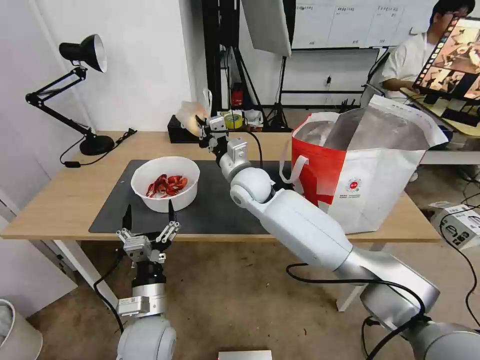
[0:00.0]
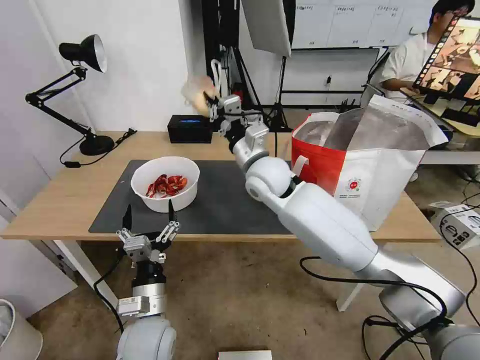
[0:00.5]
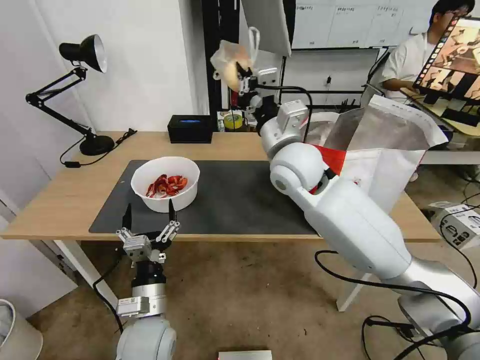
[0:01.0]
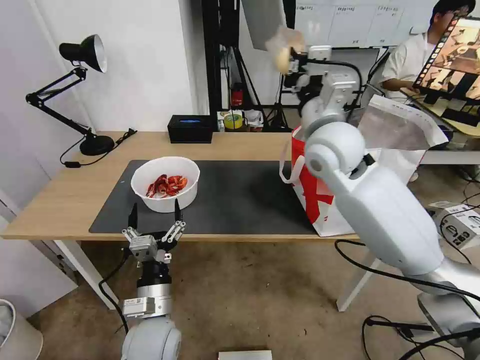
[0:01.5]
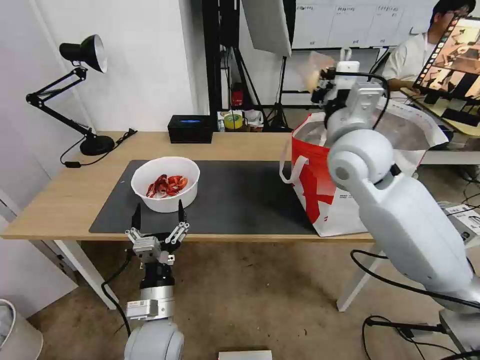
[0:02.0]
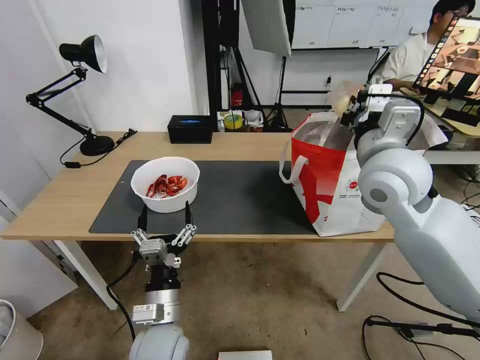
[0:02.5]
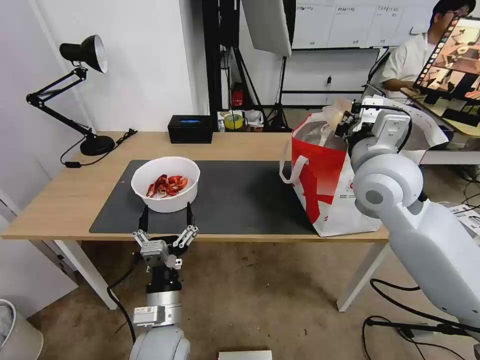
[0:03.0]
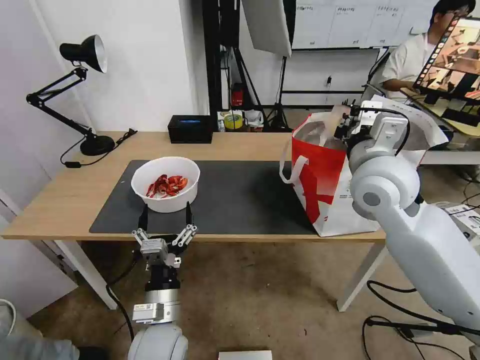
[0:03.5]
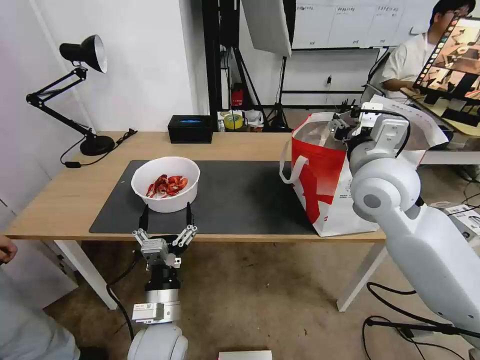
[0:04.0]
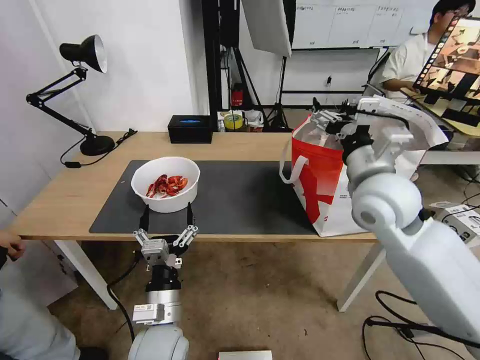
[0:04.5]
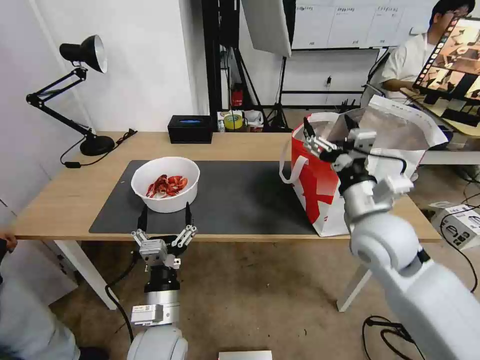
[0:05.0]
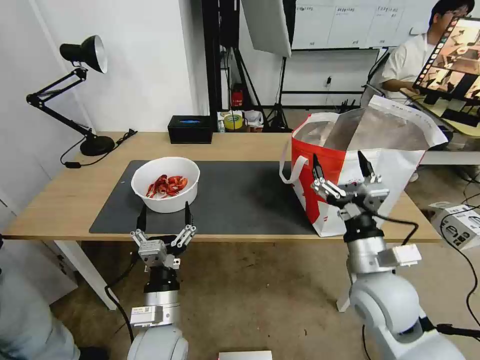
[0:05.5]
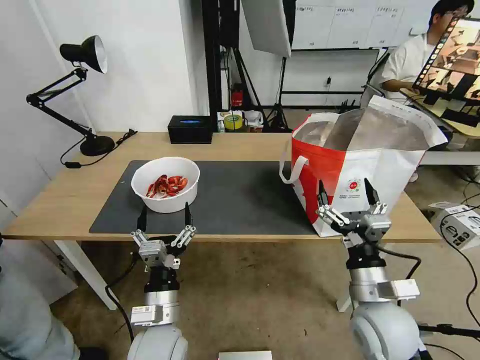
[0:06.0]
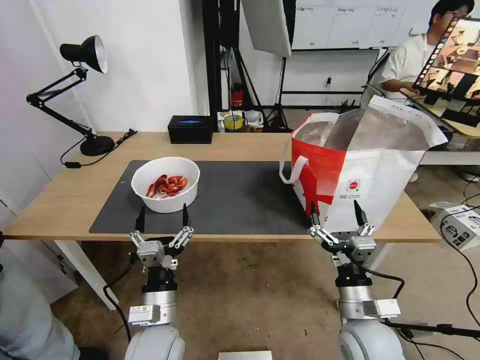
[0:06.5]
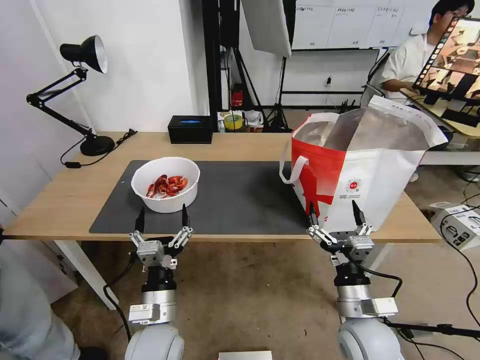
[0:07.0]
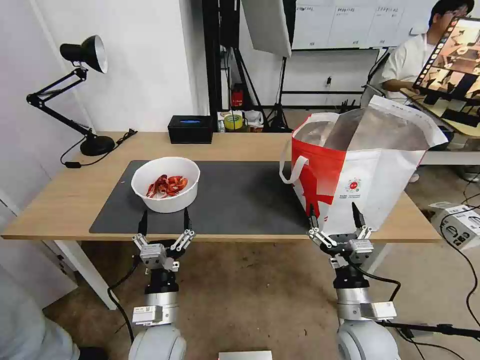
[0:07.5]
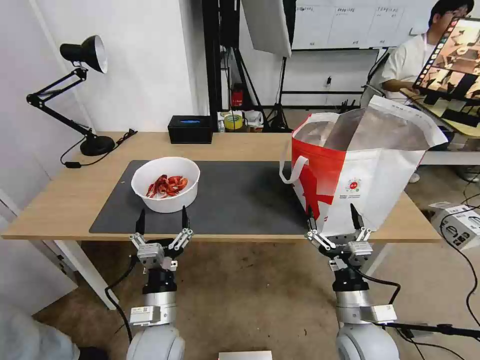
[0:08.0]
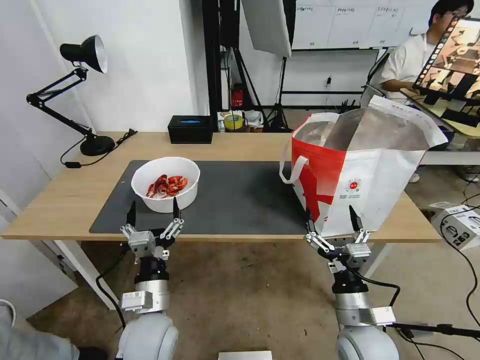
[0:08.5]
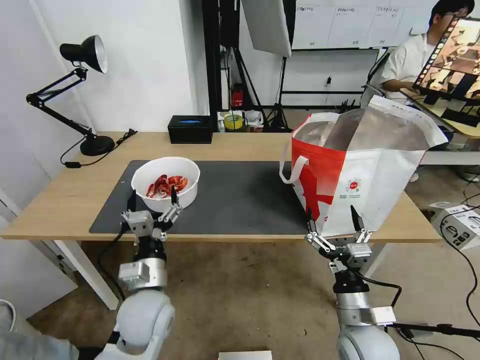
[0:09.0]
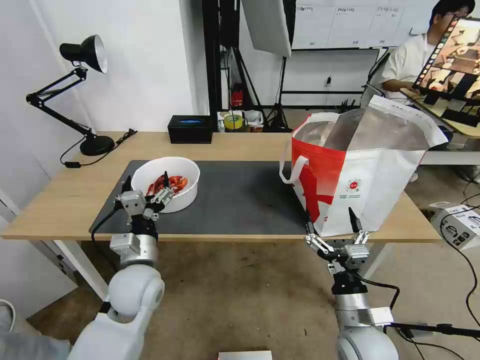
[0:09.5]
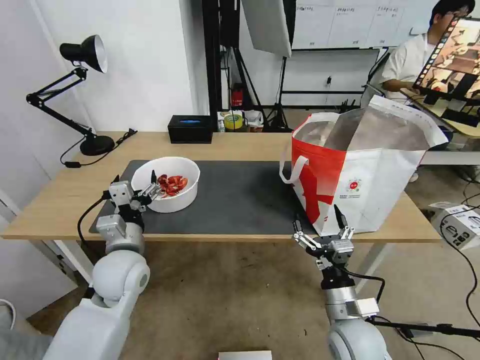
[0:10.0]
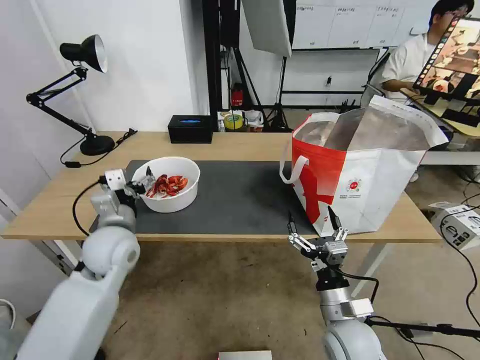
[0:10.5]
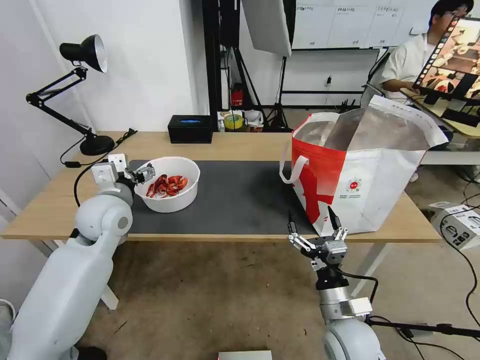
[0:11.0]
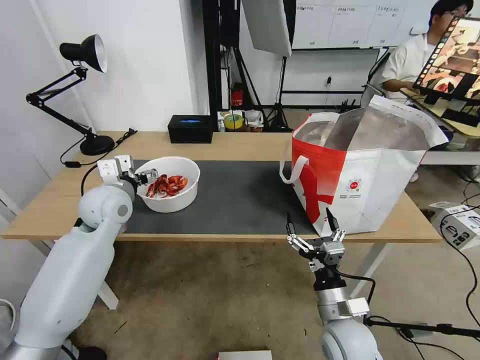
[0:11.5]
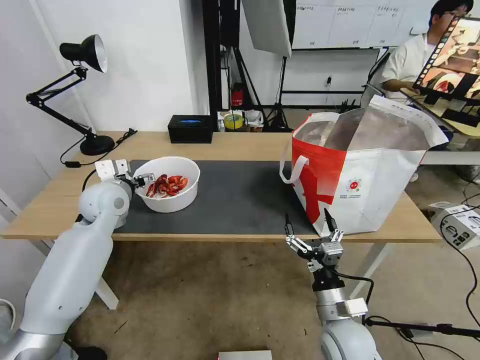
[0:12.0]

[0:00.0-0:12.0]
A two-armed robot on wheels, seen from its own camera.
Task of the whole recording: Pick up the trash from the table and place it into the takeout bag.
0:00.0 to 0:02.0: The right gripper moves to the right, upward and backward, about 25 cm.
0:02.0 to 0:04.0: The right gripper ends up about 5 cm from where it was, and opens.
0:04.0 to 0:06.0: The right gripper travels downward and backward by some 25 cm.
0:06.0 to 0:08.0: The right gripper moves downward, approximately 5 cm.
0:08.0 to 0:10.0: The left gripper shifts some 15 cm forward, upward and to the left.
0:10.0 to 0:12.0: The left gripper moves forward, to the left and upward, approximately 15 cm.

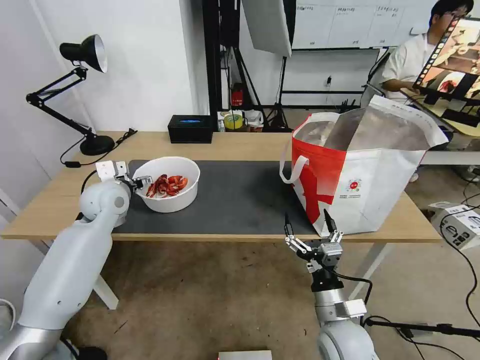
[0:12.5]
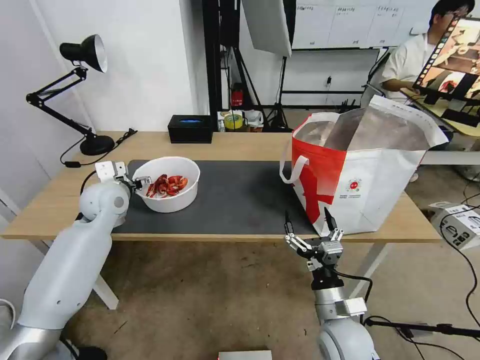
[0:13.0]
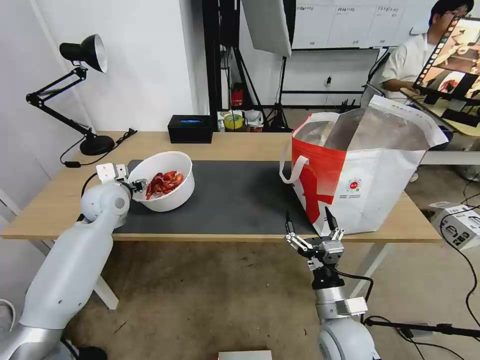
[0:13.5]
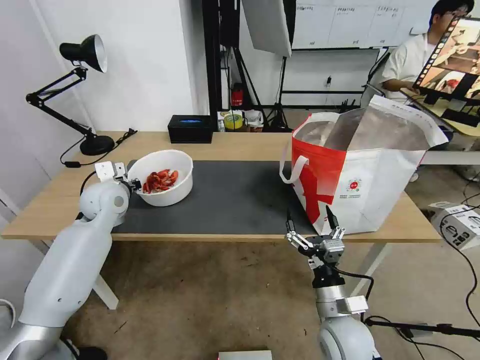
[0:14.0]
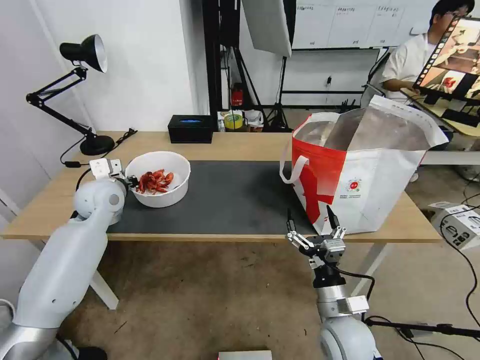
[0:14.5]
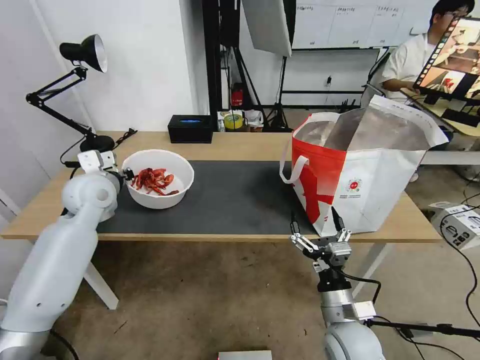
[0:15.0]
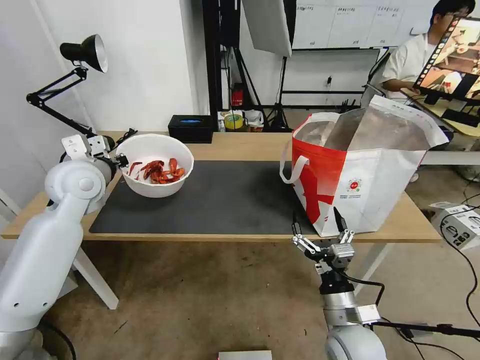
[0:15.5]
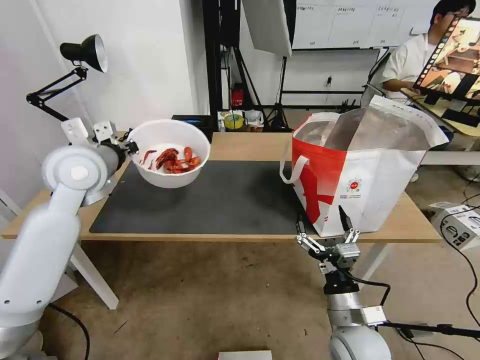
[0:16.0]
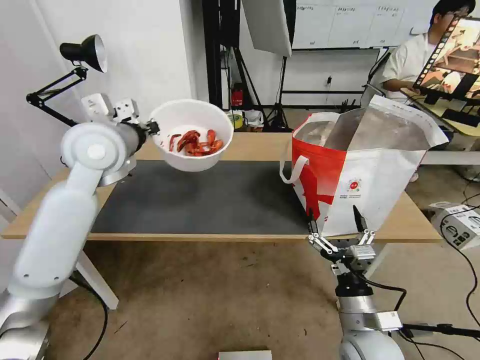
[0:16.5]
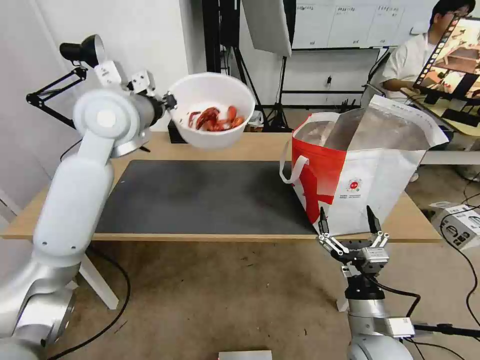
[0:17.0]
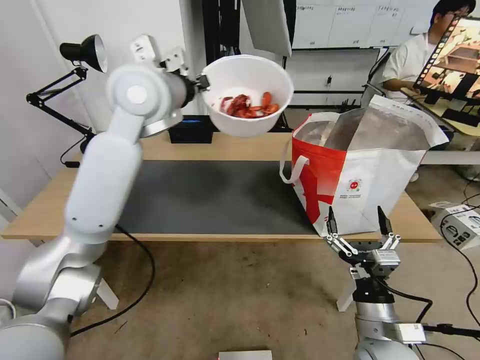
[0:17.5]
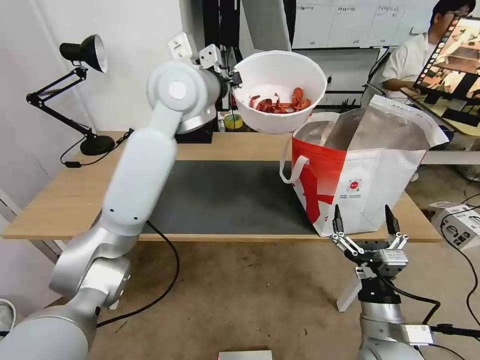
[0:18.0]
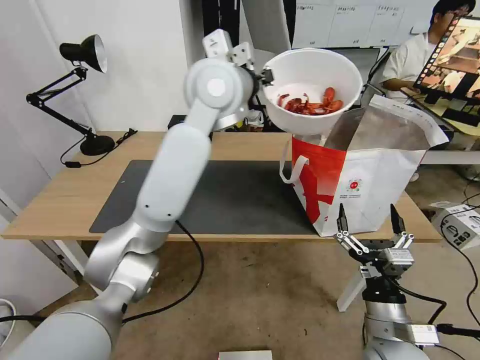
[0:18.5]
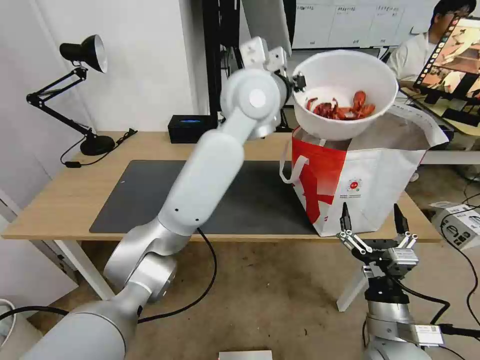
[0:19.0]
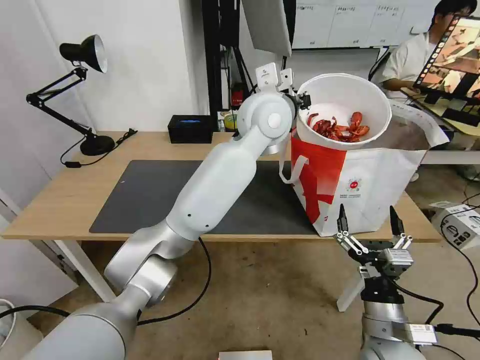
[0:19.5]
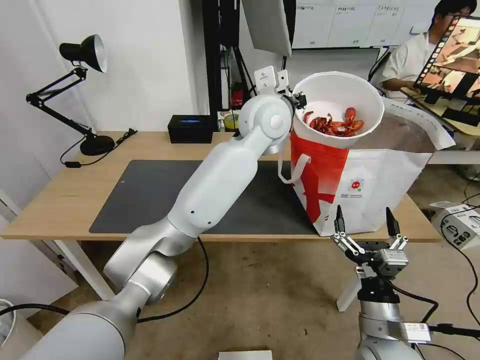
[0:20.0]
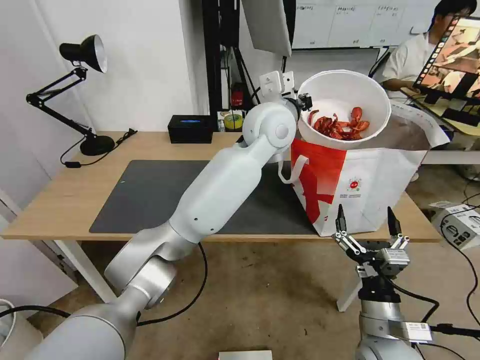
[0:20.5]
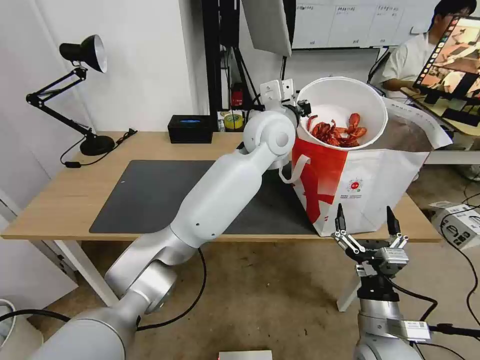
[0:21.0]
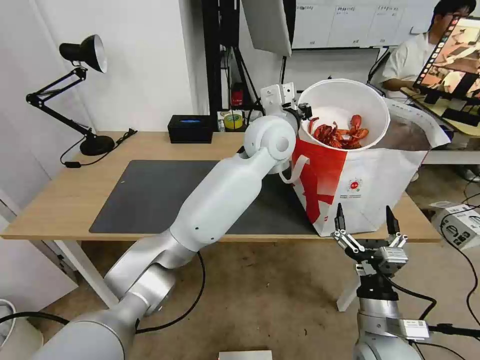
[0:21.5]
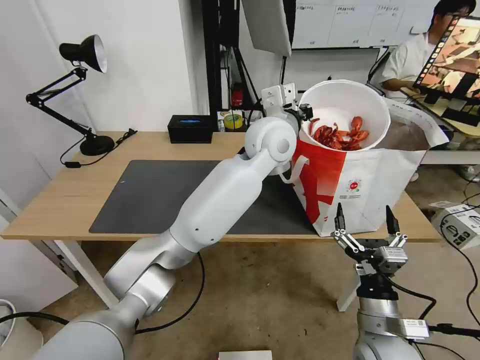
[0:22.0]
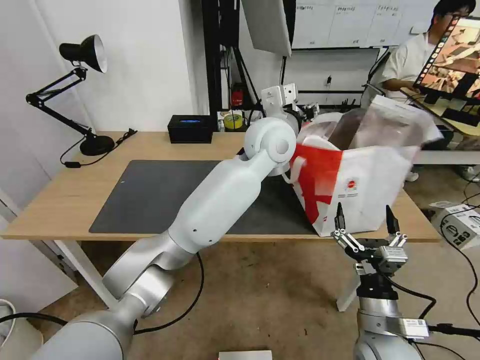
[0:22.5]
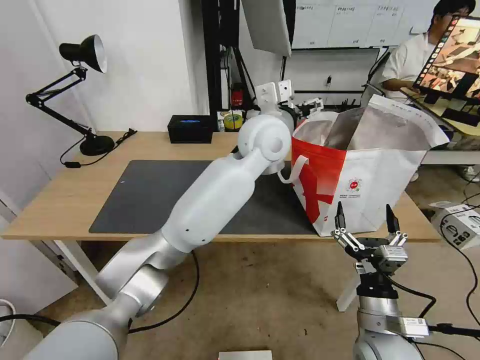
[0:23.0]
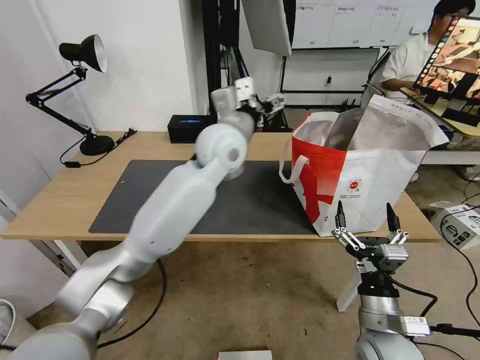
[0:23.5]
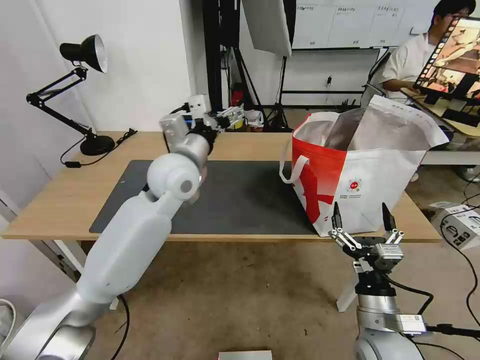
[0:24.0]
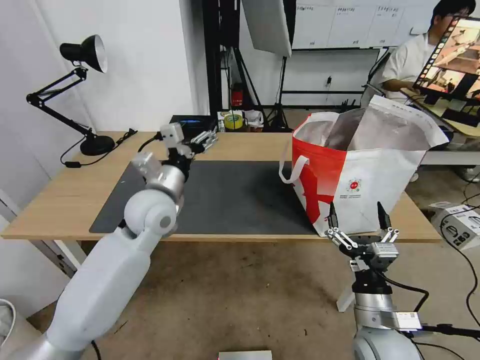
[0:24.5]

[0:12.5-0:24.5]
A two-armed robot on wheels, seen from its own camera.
Task of the whole recording: Pick up the trash from the table and place it into the takeout bag.
0:12.5 to 0:14.5: The left gripper closes its fingers.
0:14.5 to 0:16.5: The left gripper moves upward and to the right, approximately 15 cm.
0:16.5 to 0:18.5: The left gripper heads to the right, covering roughly 20 cm.
0:18.5 to 0:20.5: The left gripper is displaced to the right and downward by some 10 cm.
0:20.5 to 0:22.5: The left gripper opens its fingers.
0:22.5 to 0:24.5: The left gripper is displaced to the left and downward by roughly 25 cm, and opens up.

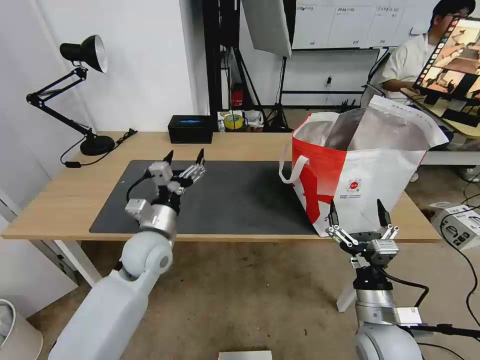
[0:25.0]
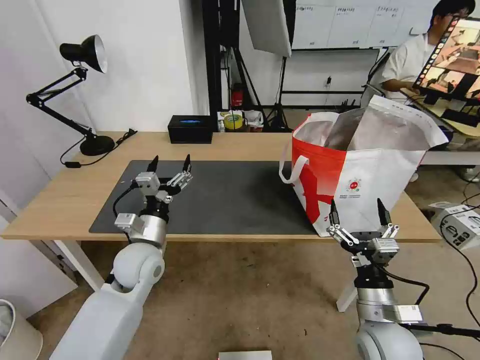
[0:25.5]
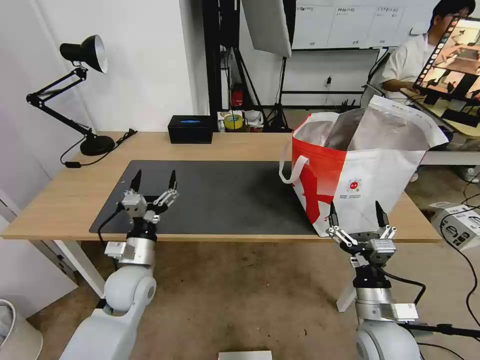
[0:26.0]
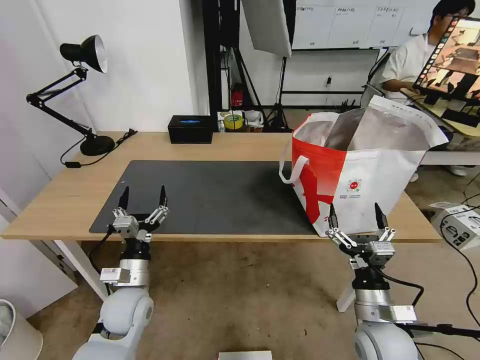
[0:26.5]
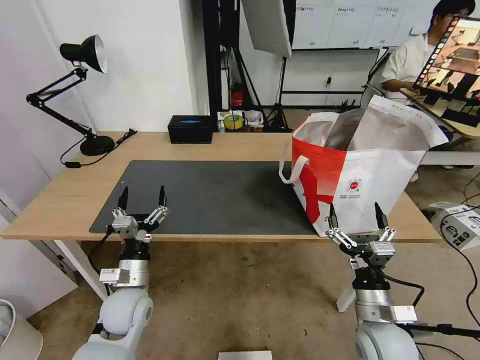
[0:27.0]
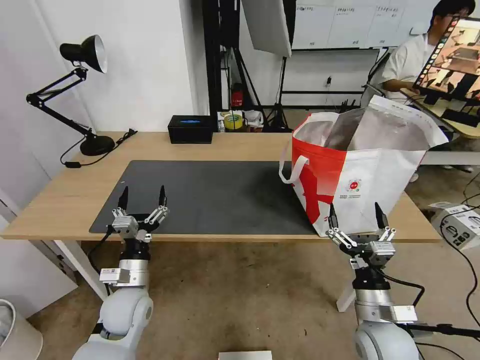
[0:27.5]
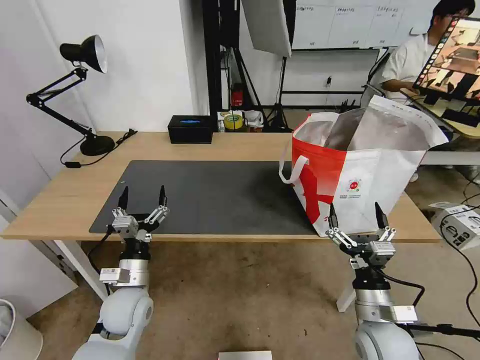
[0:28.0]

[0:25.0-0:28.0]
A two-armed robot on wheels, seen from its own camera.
Task of the whole recording: Pick up the trash from the table and place it into the takeout bag.
0:25.0 to 0:26.5: The left gripper is displaced downward and backward by about 15 cm.
0:26.5 to 0:28.0: Both grippers stay about where they are.
